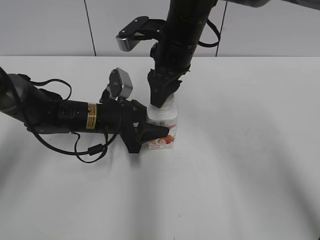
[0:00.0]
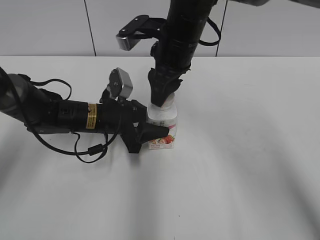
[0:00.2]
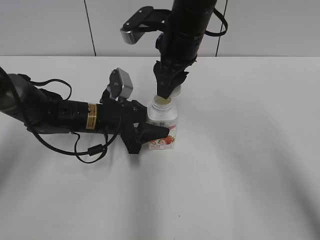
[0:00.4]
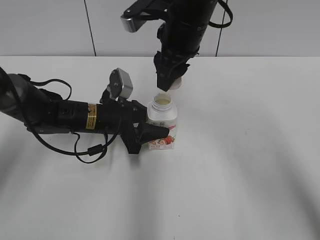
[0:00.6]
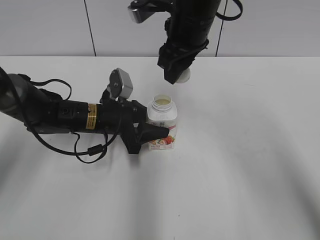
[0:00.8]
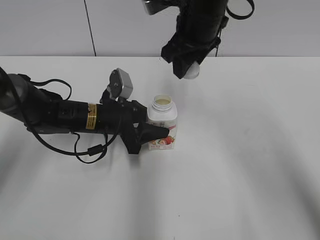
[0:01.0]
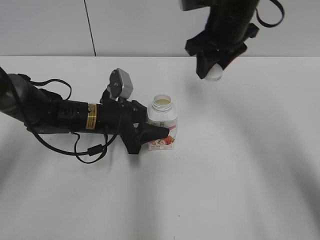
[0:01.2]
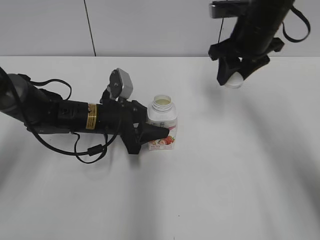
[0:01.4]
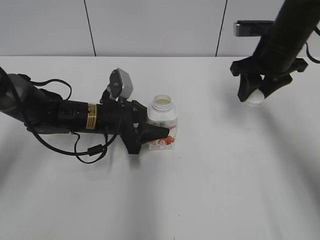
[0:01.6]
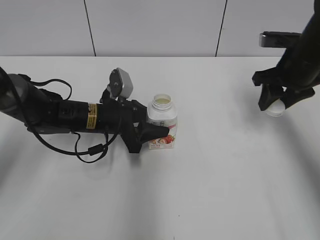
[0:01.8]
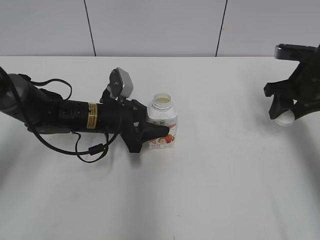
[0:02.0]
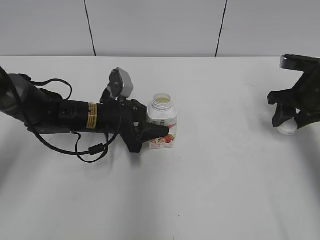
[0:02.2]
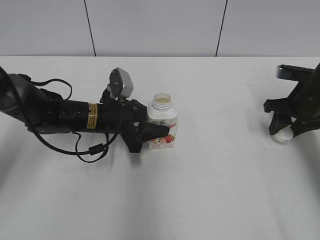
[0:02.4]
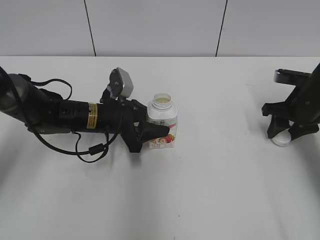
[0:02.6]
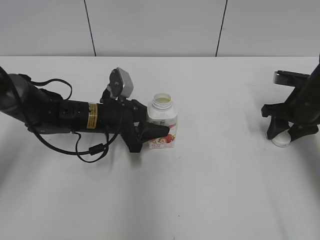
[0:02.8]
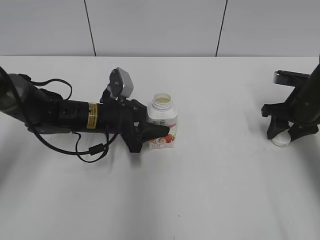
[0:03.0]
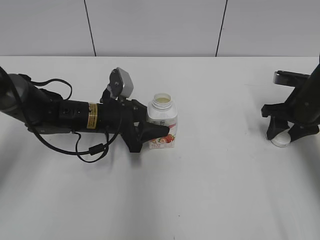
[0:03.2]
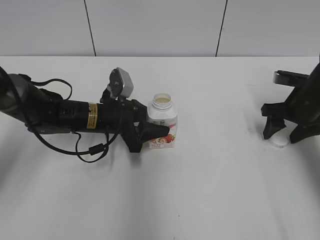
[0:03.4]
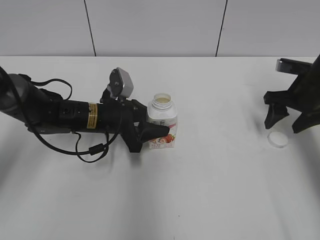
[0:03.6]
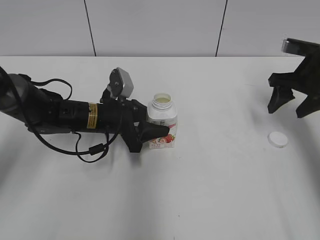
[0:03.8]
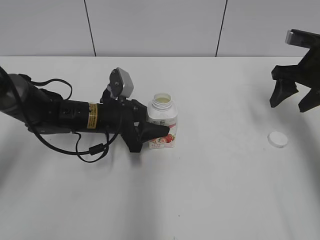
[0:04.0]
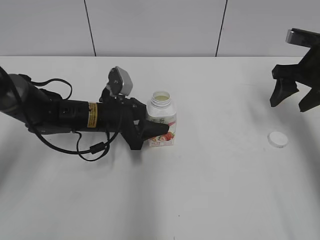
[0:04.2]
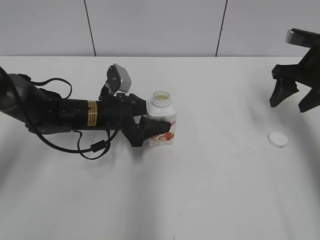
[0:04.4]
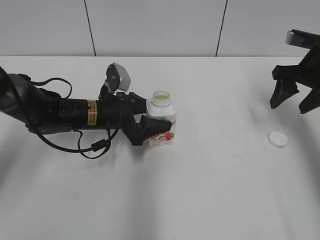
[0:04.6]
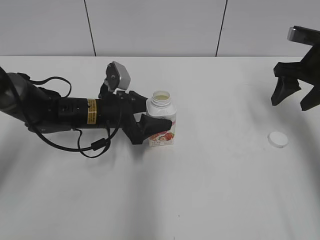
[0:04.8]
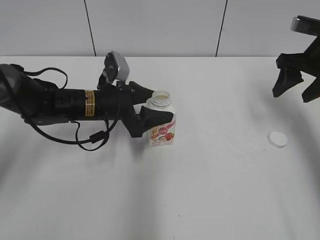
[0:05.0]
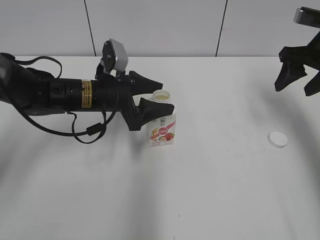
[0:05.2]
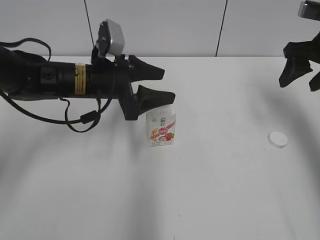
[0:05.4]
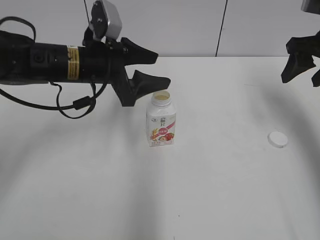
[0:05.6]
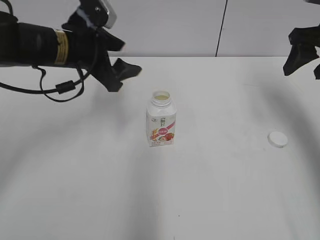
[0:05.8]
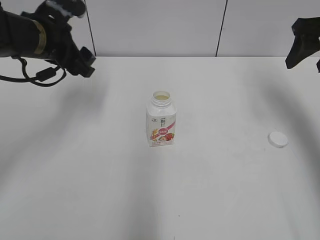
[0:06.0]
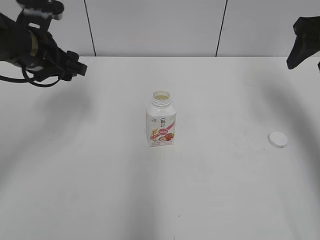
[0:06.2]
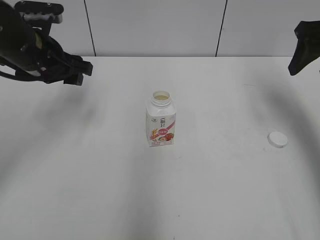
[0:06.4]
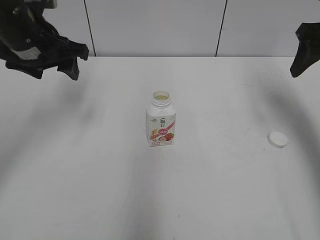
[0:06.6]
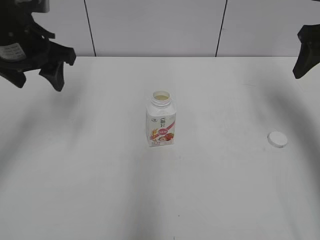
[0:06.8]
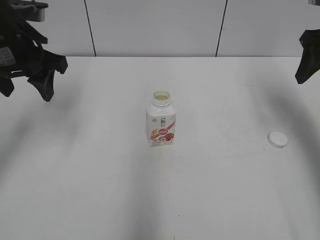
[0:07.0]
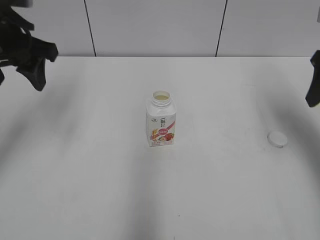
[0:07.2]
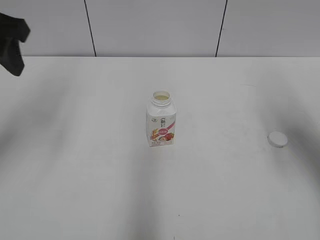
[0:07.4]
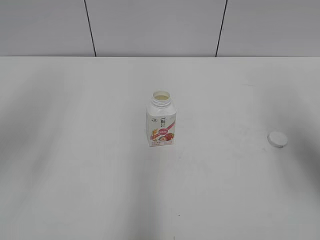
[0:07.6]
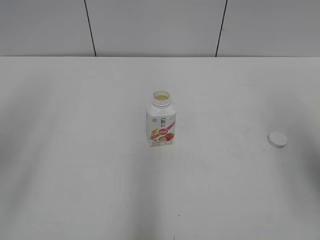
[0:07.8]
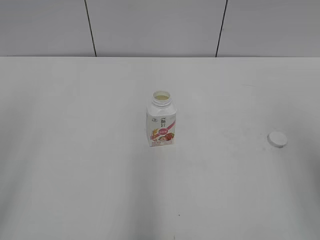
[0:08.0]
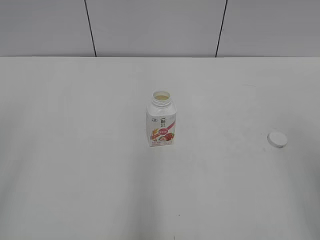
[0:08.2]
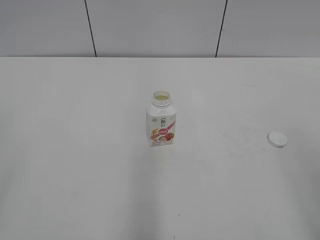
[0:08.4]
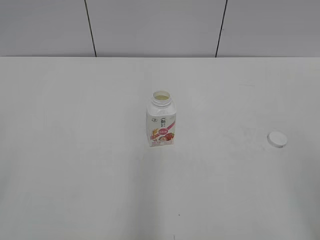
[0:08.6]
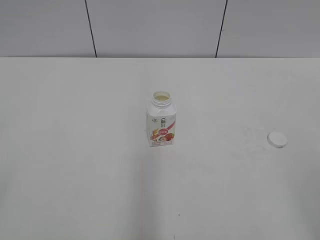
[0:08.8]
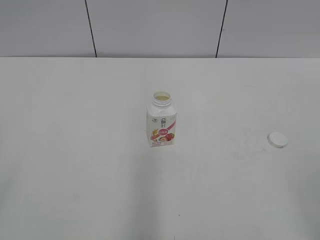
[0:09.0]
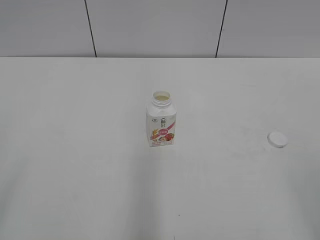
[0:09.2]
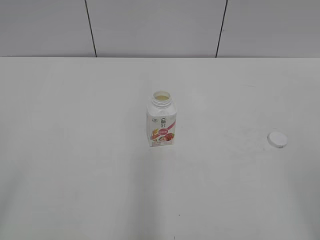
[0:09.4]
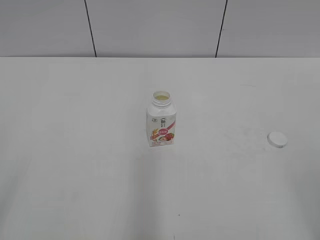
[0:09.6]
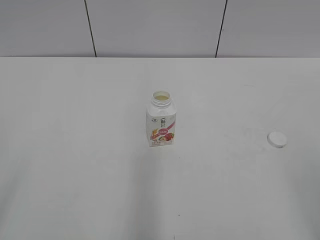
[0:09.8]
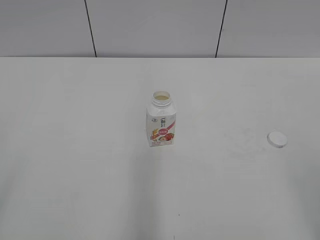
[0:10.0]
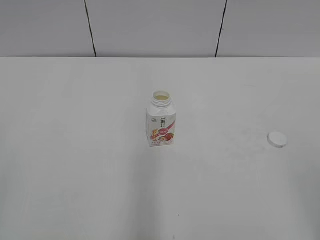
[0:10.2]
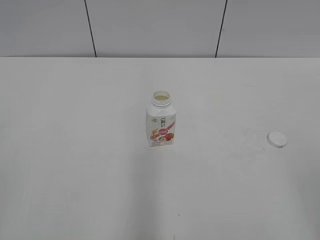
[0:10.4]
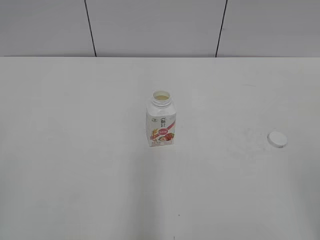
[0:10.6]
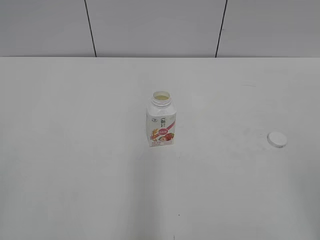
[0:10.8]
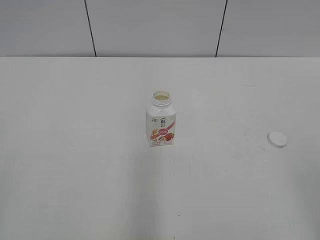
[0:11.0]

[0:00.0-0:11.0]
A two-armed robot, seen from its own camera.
Step, 0:00.4 to 0:03.4: Place the bottle cap on the right.
0:00.0 to 0:01.6: The right gripper goes approximately 15 cm to the right.
0:01.6 to 0:03.2: The right gripper travels downward and to the right by some 15 cm.
0:03.2 to 0:04.8: The left gripper opens its fingers. Meanwhile the right gripper heads upward, covering approximately 10 cm, and opens.
0:04.8 to 0:06.2: The left gripper shifts about 15 cm upward and to the left. Meanwhile the right gripper shifts some 10 cm upward.
0:06.2 to 0:07.8: The right gripper travels backward by about 20 cm. The left gripper travels backward and upward by roughly 25 cm.
0:07.8 to 0:09.4: The left gripper shifts roughly 20 cm backward and downward, while the right gripper travels backward by about 20 cm.

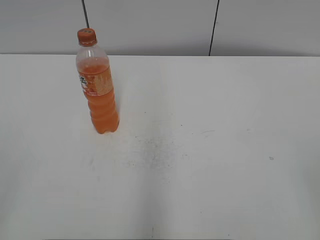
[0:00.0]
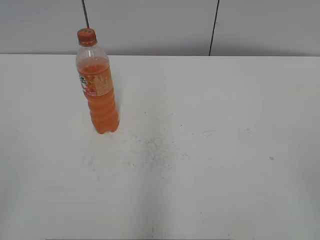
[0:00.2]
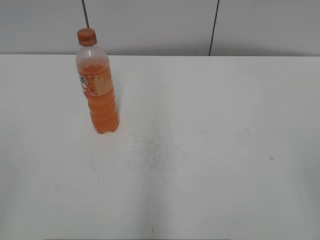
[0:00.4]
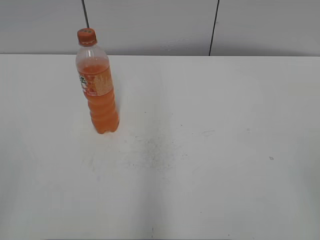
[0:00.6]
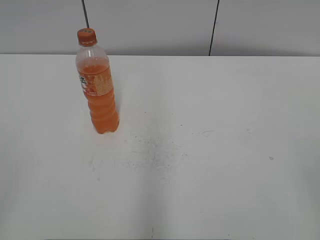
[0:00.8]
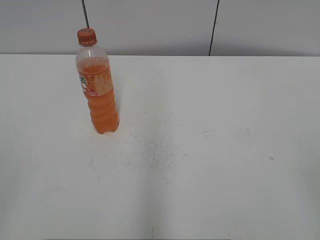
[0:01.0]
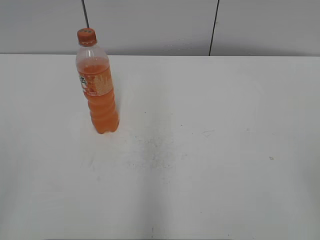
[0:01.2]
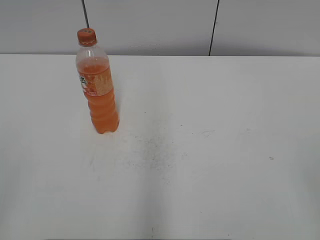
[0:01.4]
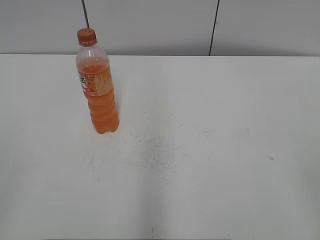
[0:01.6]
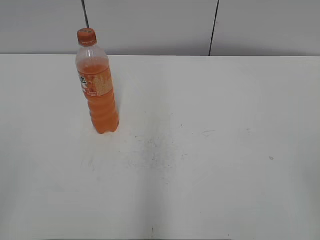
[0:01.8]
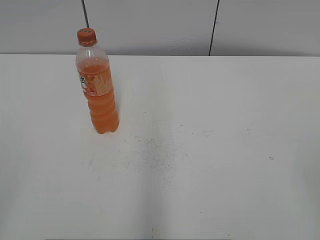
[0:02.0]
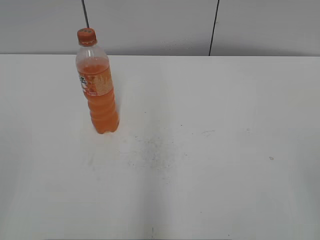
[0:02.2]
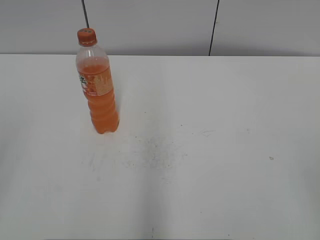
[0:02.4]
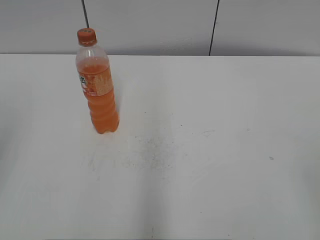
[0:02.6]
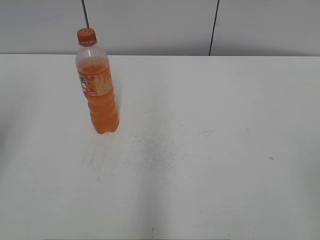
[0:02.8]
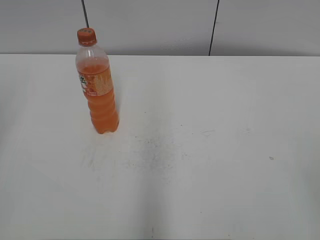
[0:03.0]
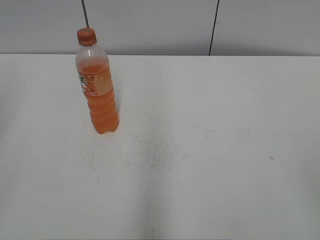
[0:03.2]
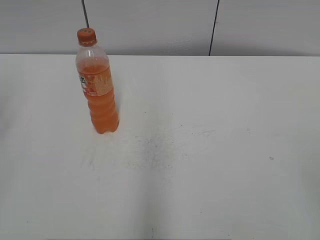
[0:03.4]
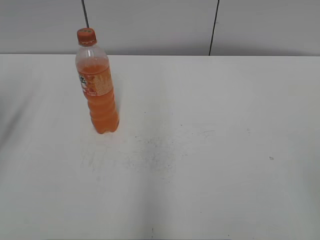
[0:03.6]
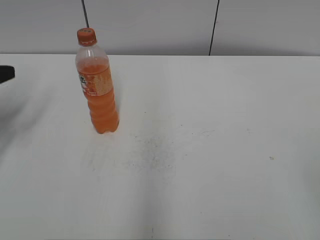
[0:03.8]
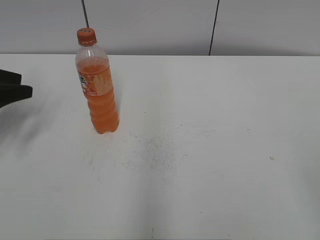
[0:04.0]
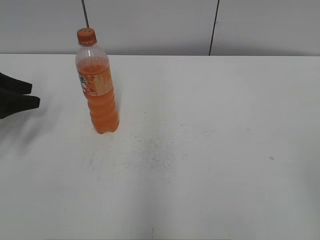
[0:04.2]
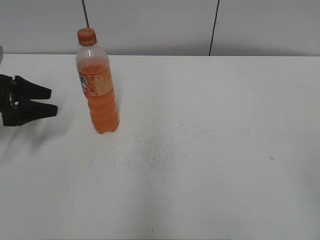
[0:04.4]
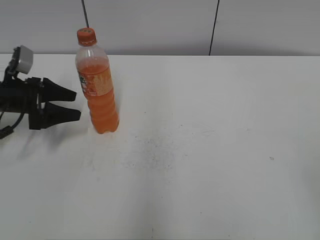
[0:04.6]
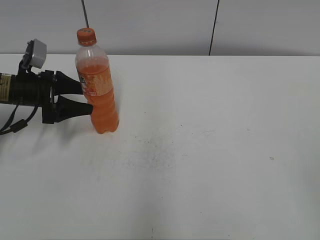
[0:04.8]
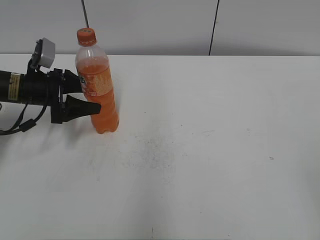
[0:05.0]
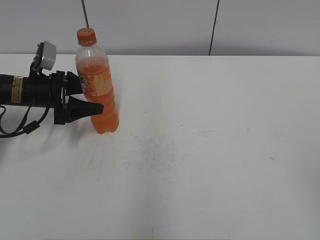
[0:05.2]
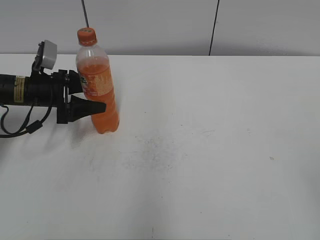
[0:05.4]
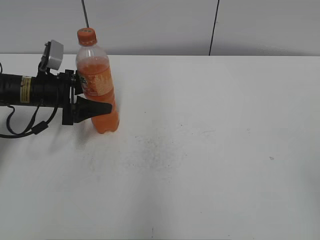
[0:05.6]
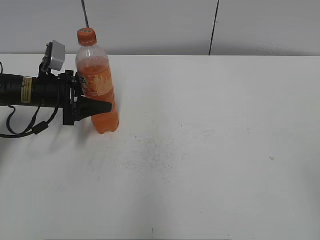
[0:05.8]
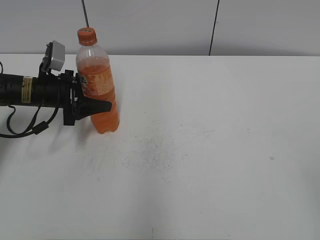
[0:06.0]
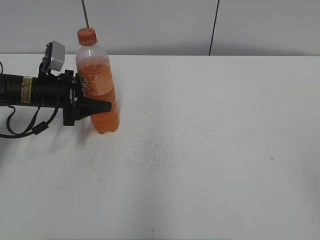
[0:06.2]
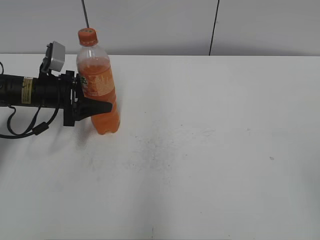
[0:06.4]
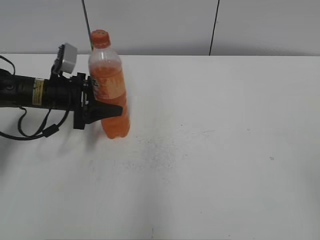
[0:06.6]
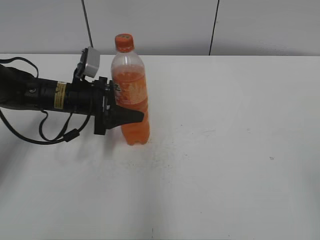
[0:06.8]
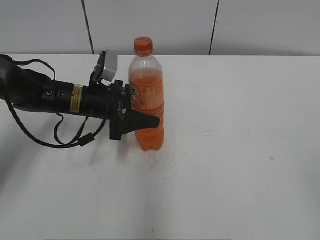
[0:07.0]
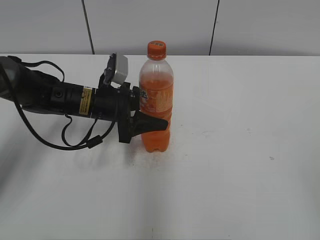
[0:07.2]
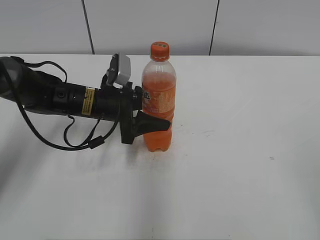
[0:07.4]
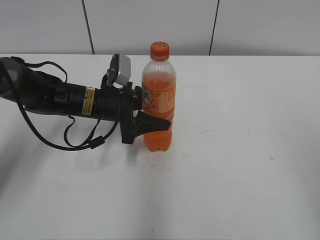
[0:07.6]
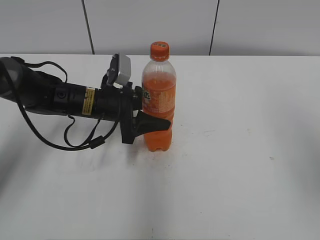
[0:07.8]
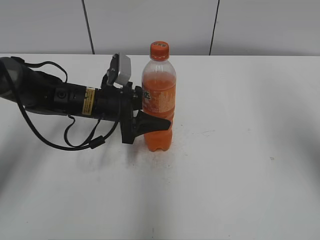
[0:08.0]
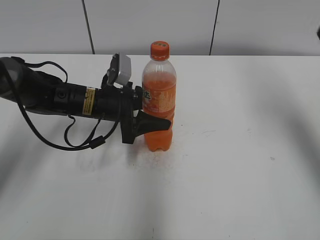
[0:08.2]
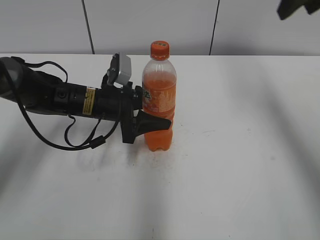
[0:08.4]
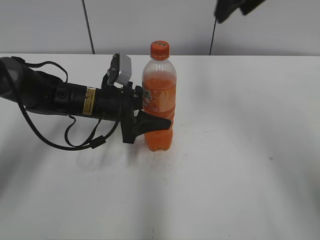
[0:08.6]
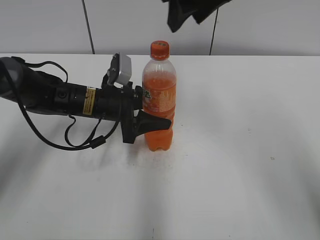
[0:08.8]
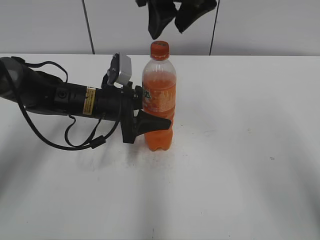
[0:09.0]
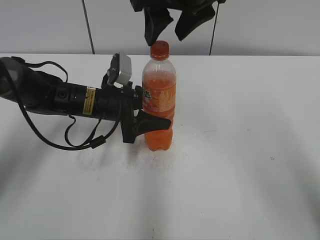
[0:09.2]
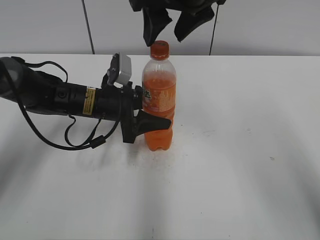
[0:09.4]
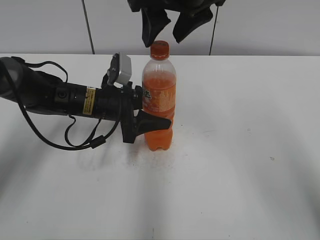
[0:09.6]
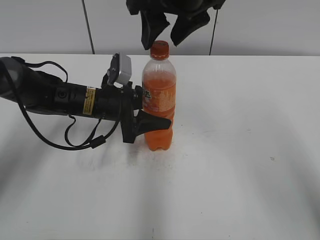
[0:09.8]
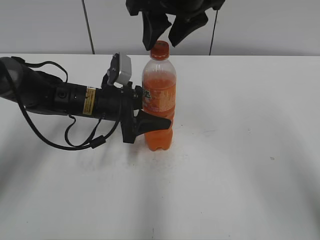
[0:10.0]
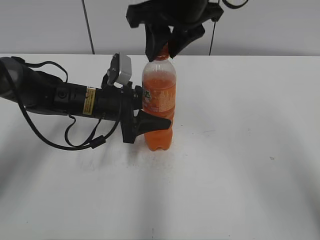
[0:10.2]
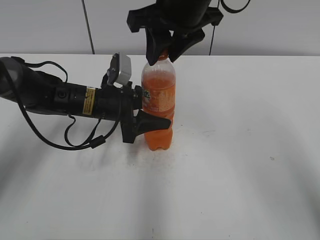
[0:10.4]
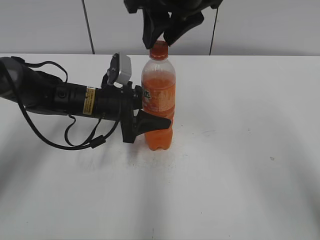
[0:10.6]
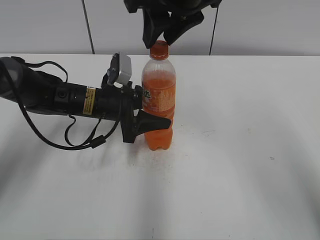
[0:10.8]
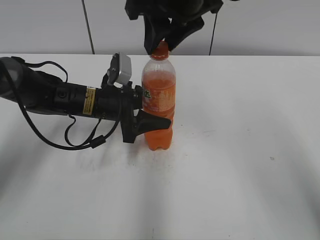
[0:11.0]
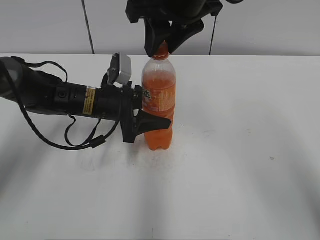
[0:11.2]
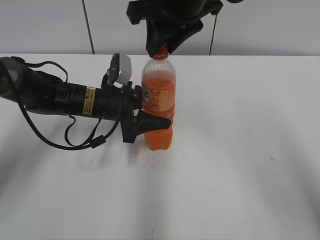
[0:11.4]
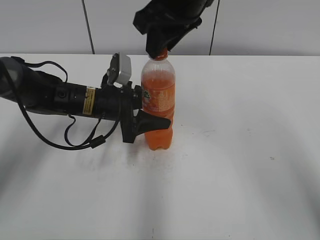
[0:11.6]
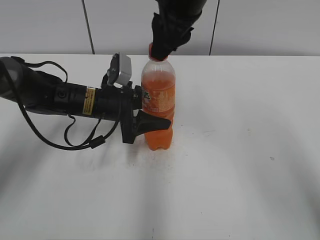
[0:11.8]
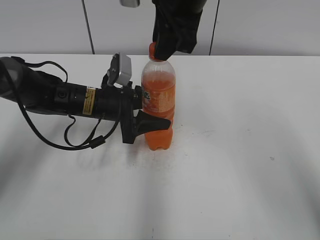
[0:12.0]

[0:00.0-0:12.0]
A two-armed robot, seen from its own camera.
Step, 0:00.0 to 0:05.8: Grab the Mirinda with the left hand.
Step, 0:06.0 to 0:07.2: Move the Mirinda from left to right.
0:03.0 to 0:04.4: The left gripper shifts roughly 25 cm downward and forward, and opens.
0:04.4 to 0:06.0: The left gripper travels to the right by roughly 10 cm, and closes.
0:06.0 to 0:07.6: The right gripper travels upward and forward by roughly 10 cm; the left gripper travels to the right by about 10 cm.
0:07.6 to 0:09.0: The right gripper moves forward and to the left, roughly 35 cm.
0:09.0 to 0:10.4: The right gripper closes its fingers.
